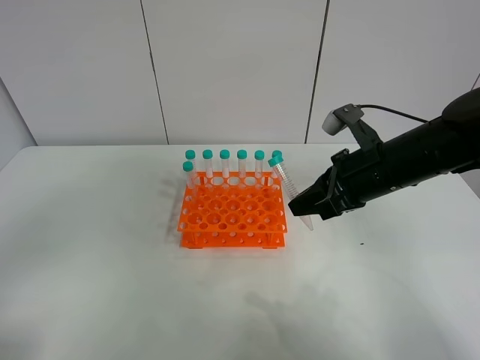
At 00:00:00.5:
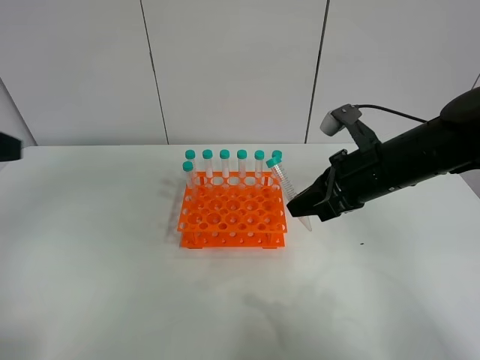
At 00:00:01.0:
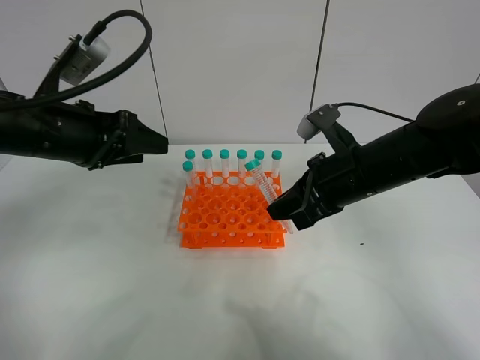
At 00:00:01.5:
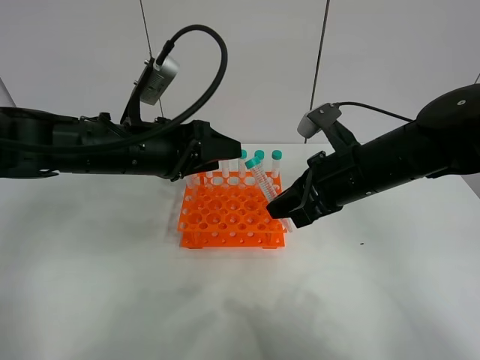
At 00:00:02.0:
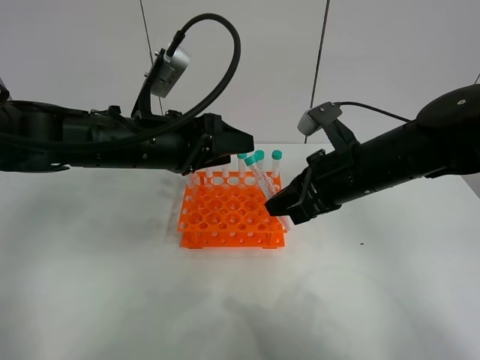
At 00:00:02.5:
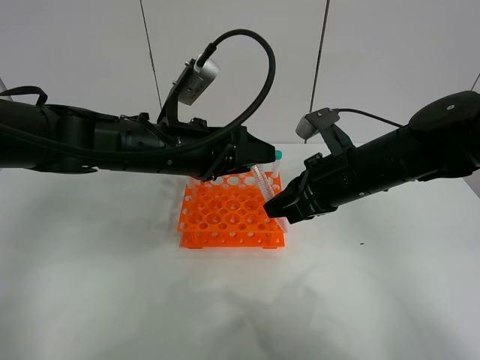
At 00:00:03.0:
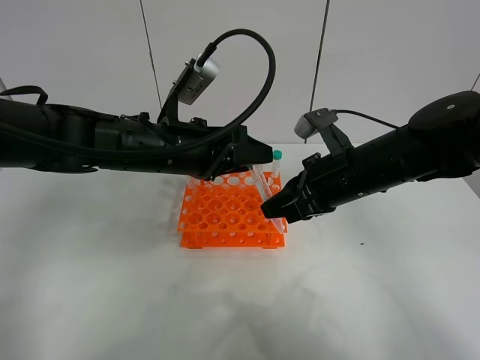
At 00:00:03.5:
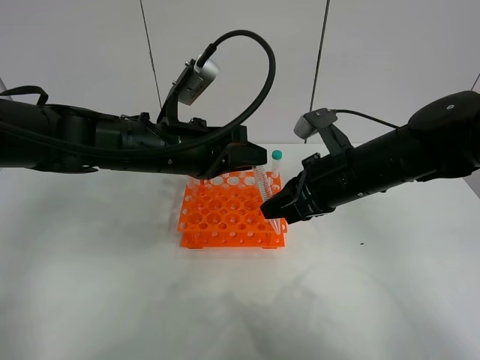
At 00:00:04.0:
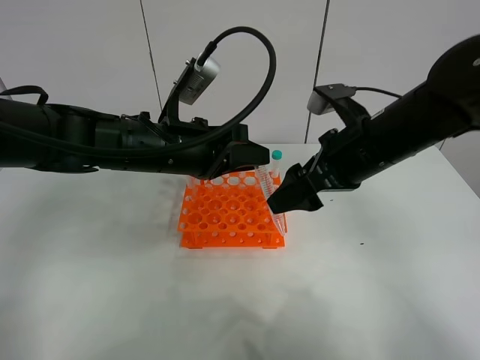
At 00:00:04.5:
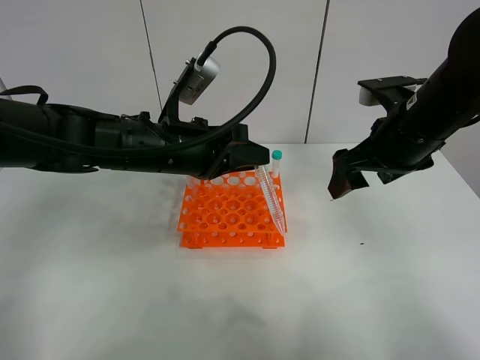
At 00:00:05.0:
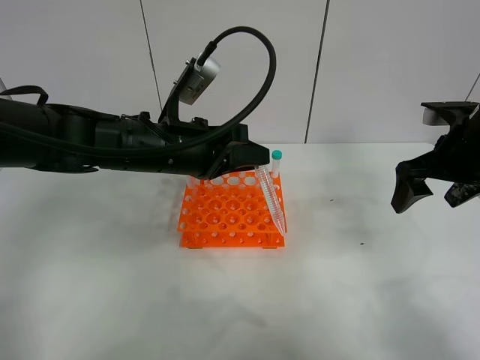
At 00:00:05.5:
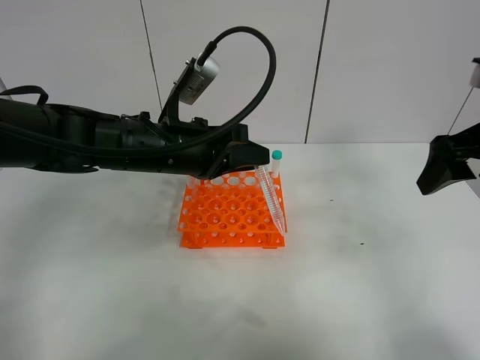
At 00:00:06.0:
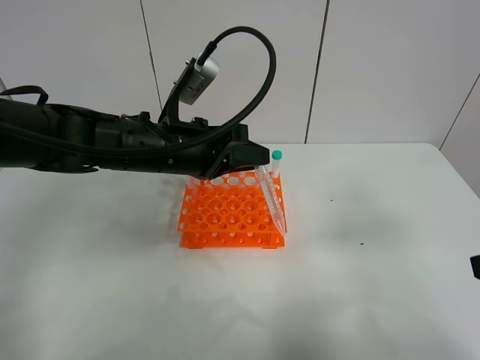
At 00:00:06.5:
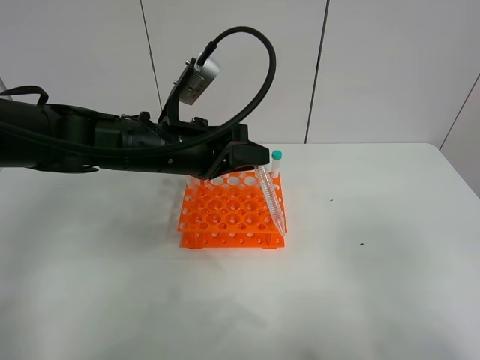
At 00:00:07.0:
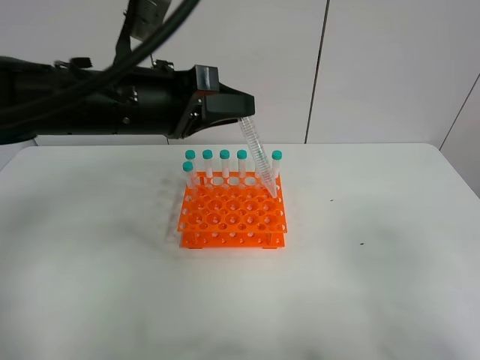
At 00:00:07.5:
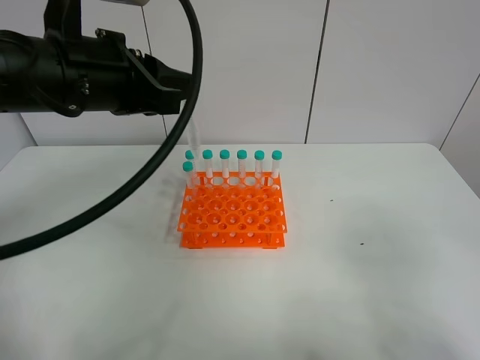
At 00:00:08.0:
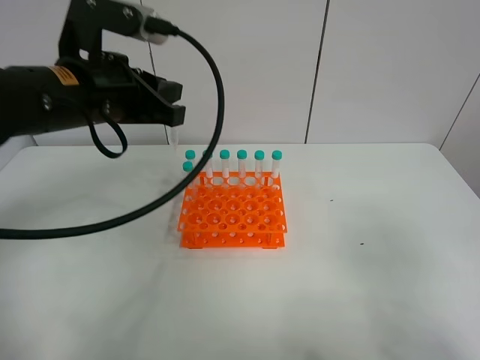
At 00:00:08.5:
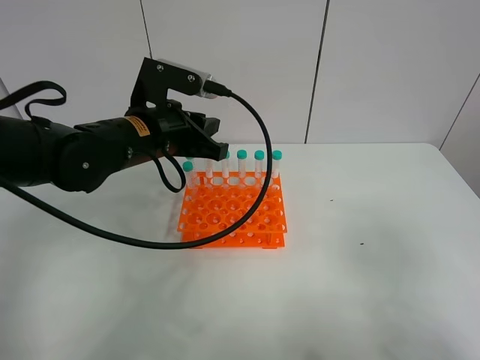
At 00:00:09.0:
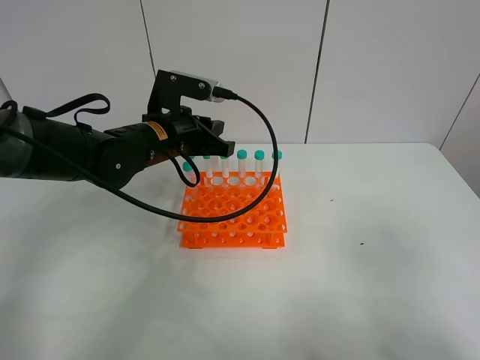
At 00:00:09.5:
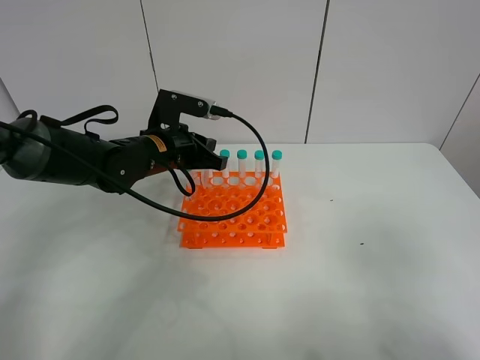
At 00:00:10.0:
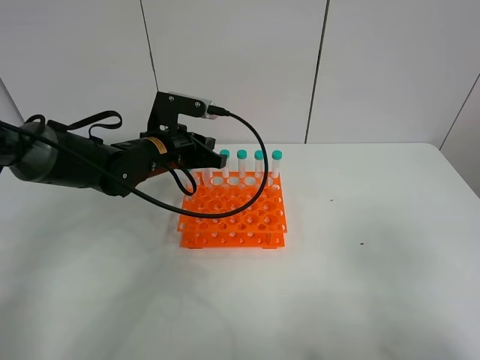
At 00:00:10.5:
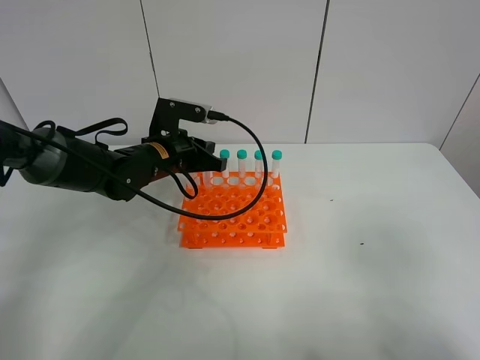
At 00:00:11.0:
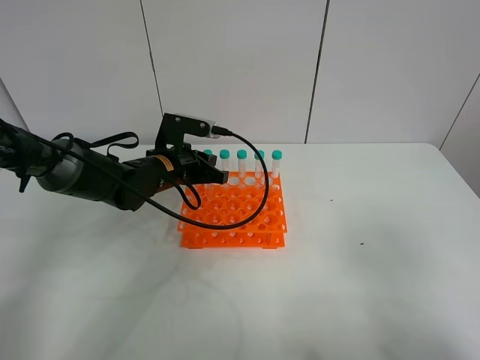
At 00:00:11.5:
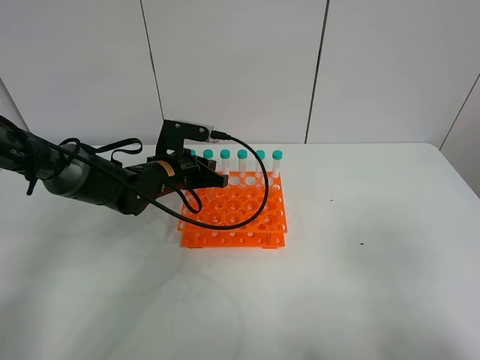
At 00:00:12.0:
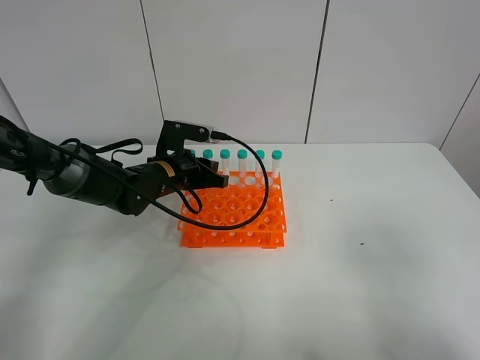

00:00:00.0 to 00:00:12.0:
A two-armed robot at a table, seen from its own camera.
Task of the whole recording: Put the test tube on the table back onto the test tube rack.
Step, 00:00:00.0 to 00:00:03.5: Move the test tube from the right gripper to the left gripper.
00:00:00.0 to 00:00:02.0: The left gripper is displaced forward and to the right by roughly 35 cm.
00:00:02.0 to 00:00:04.0: The right gripper opens its fingers. Meanwhile the left gripper closes its fingers.
00:00:04.0 to 00:00:06.0: The right gripper shifts roughly 25 cm backward and to the right.
00:00:06.0 to 00:00:08.0: The right gripper goes approximately 5 cm backward, while the left gripper is displaced upward and to the left by approximately 10 cm.
00:00:08.0 to 00:00:10.0: The left gripper moves downward and forward, approximately 15 cm.
00:00:10.0 to 00:00:12.0: The left gripper opens.

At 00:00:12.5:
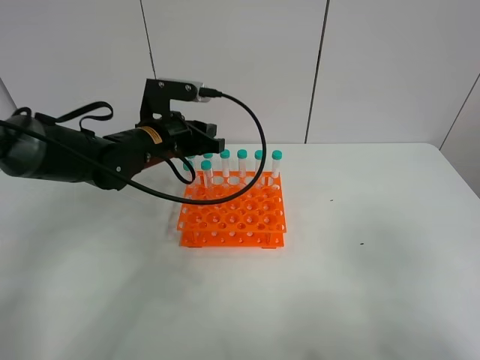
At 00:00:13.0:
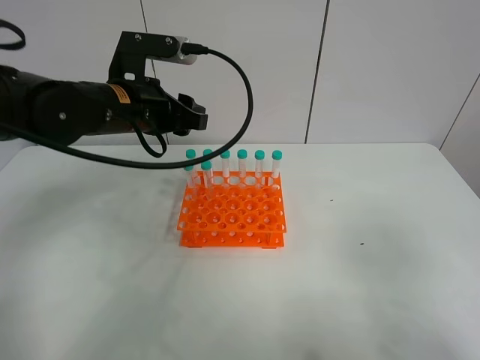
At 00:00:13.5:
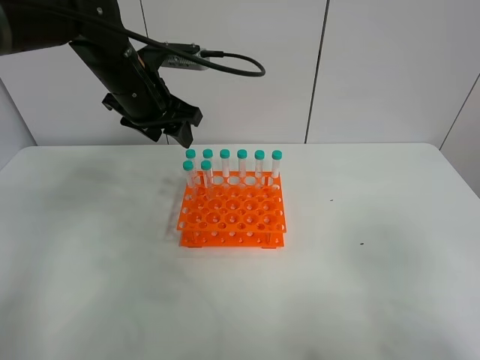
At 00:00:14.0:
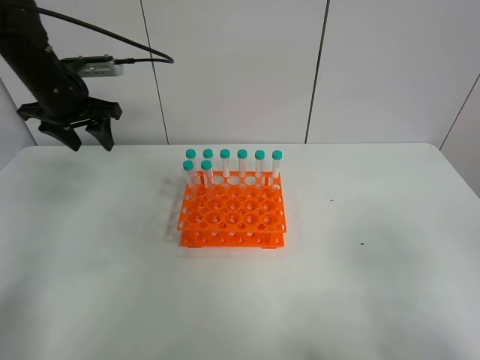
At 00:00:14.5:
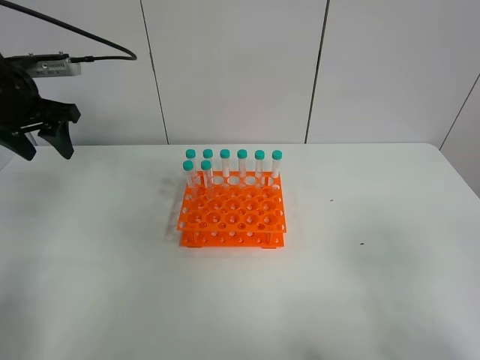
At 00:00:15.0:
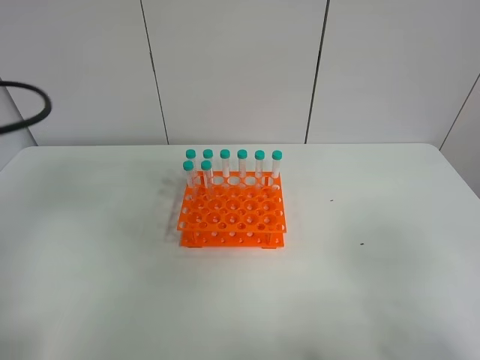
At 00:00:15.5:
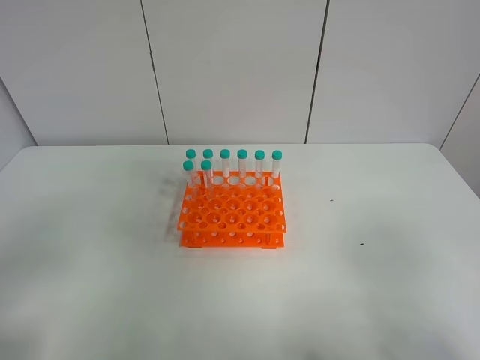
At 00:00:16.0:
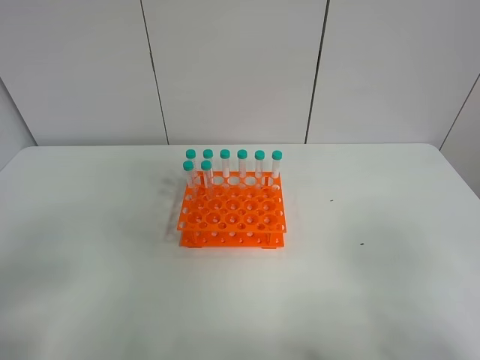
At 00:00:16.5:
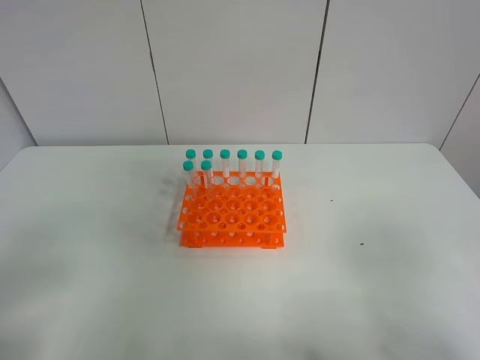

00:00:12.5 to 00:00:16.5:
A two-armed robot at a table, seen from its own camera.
Task of the whole recording: Put the test tube on the table back onto the test tube rack.
00:00:12.5 to 00:00:14.5: The left gripper is displaced to the left and upward by roughly 20 cm, and opens.
00:00:14.5 to 00:00:16.5: The left gripper shifts approximately 35 cm backward.
